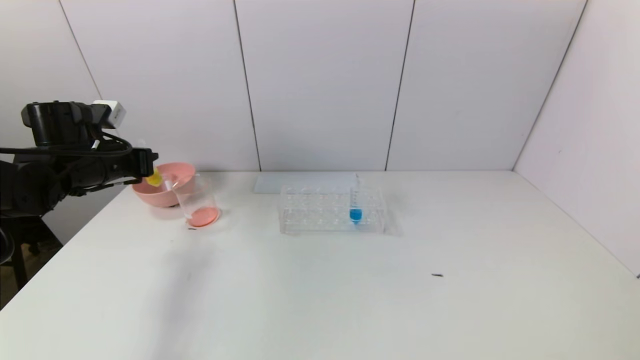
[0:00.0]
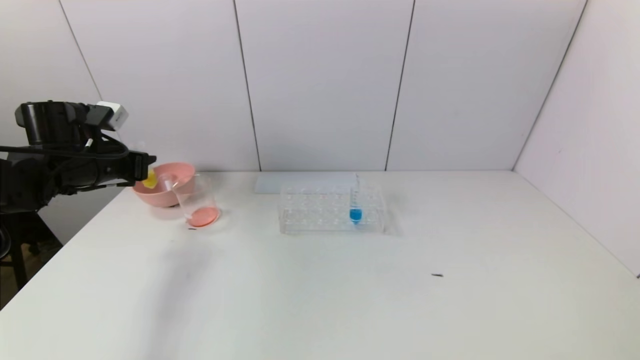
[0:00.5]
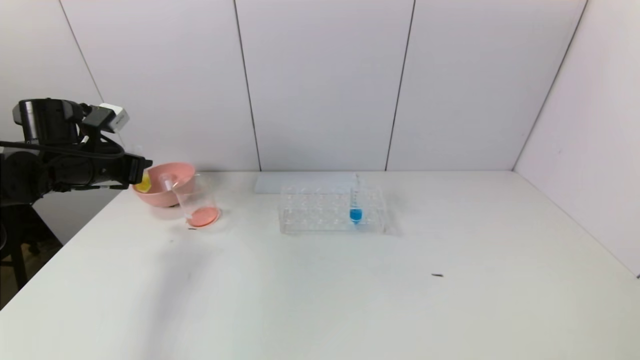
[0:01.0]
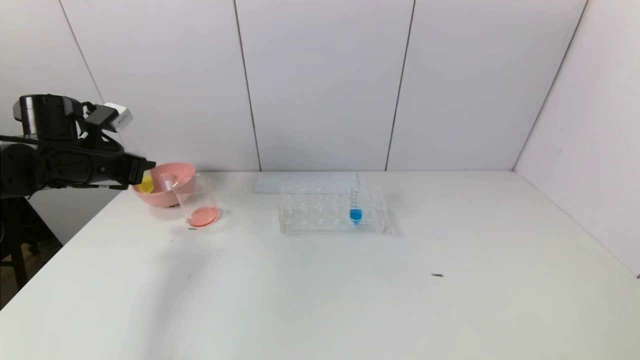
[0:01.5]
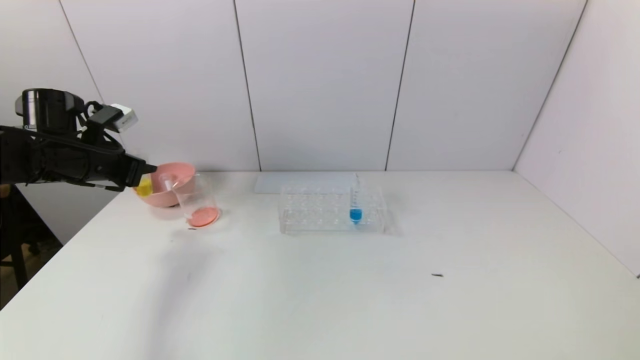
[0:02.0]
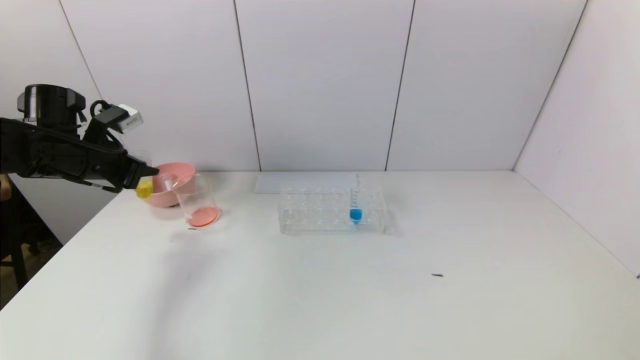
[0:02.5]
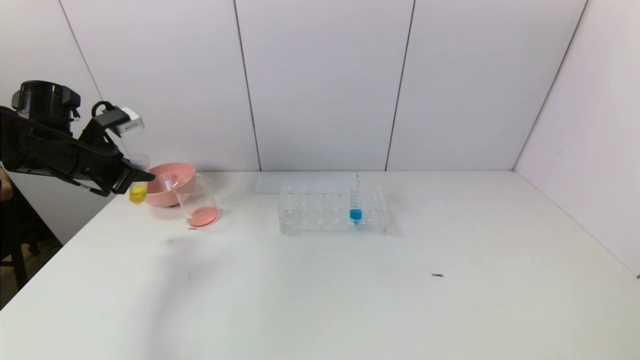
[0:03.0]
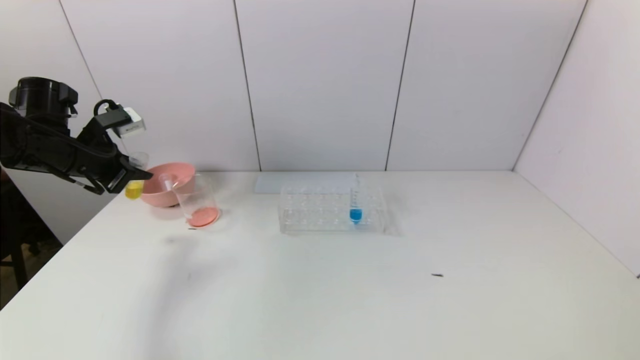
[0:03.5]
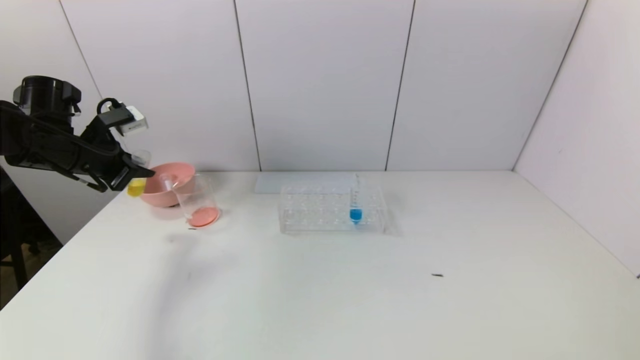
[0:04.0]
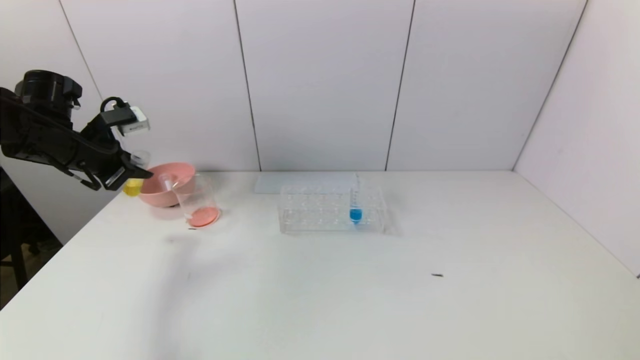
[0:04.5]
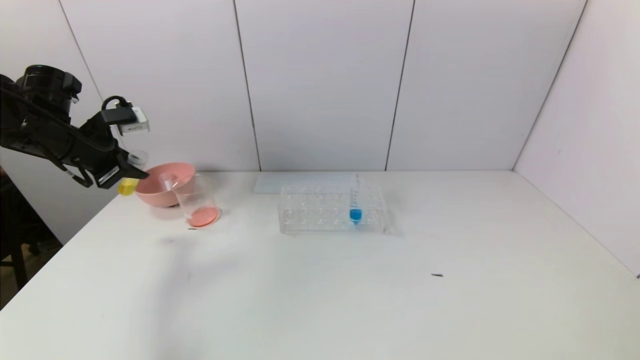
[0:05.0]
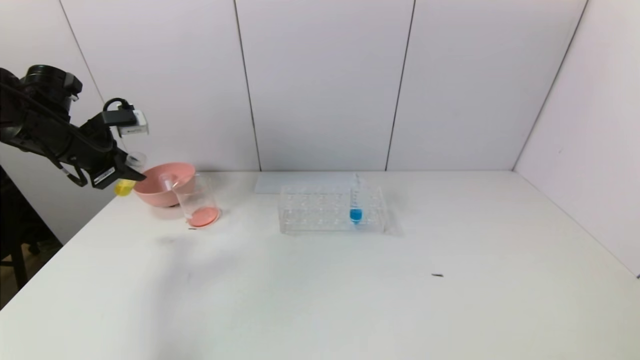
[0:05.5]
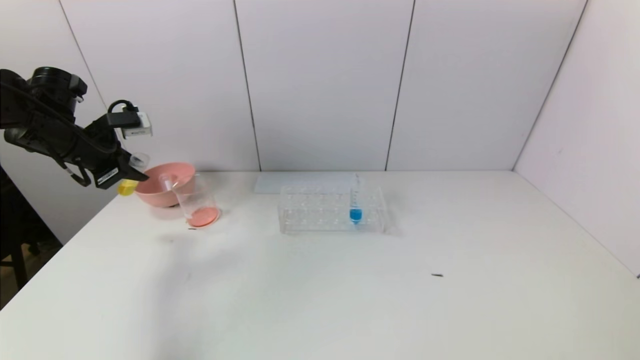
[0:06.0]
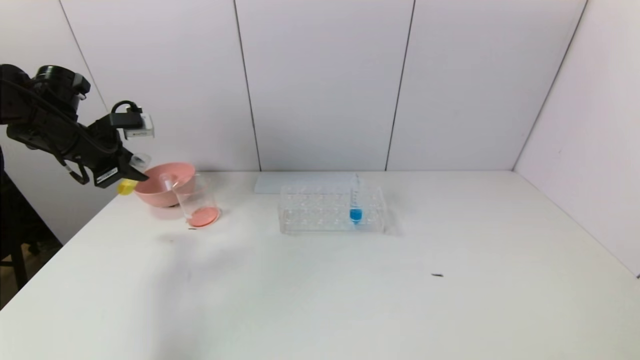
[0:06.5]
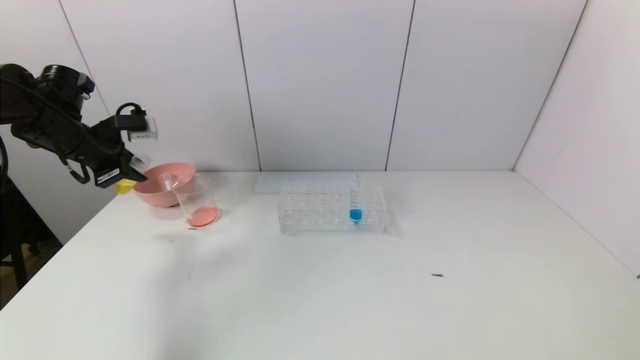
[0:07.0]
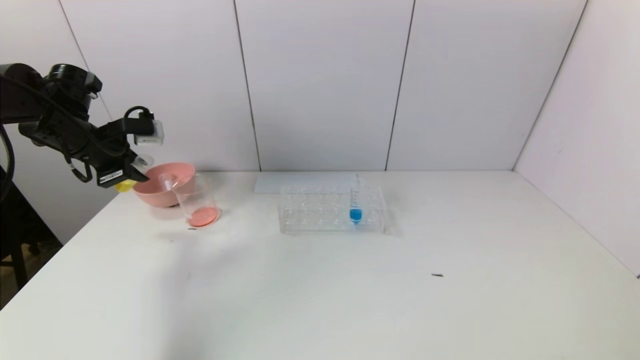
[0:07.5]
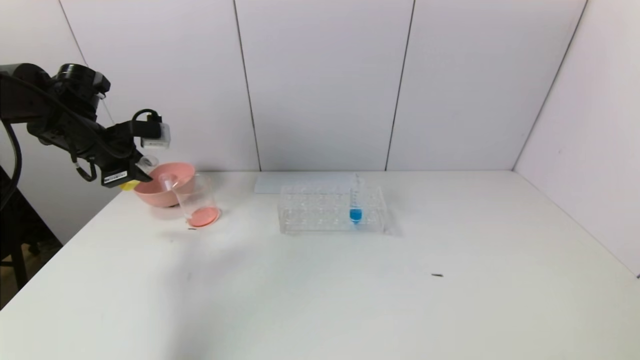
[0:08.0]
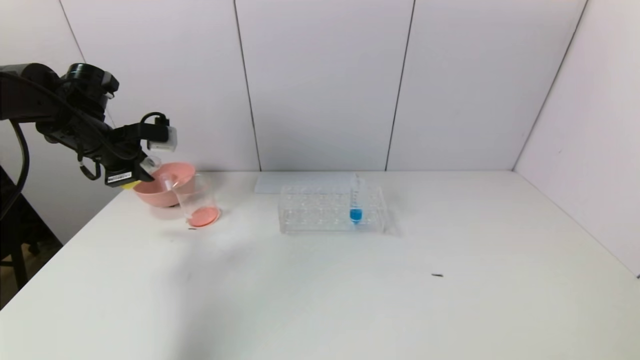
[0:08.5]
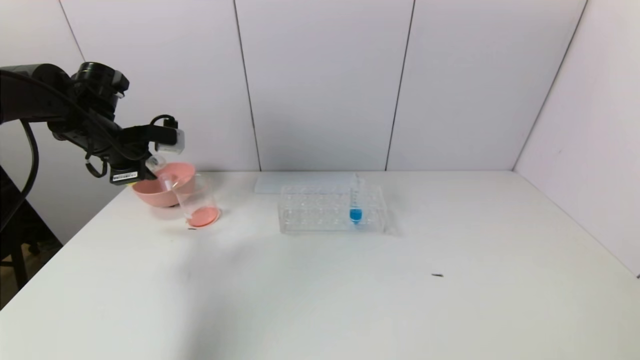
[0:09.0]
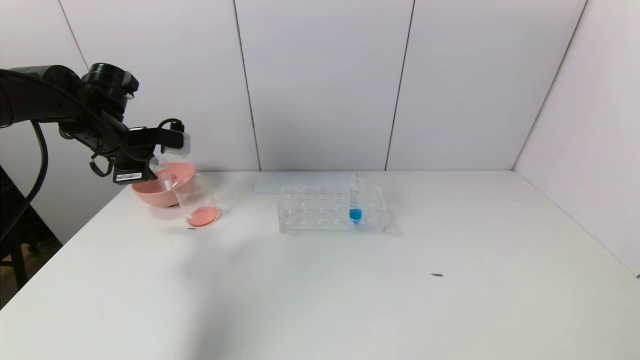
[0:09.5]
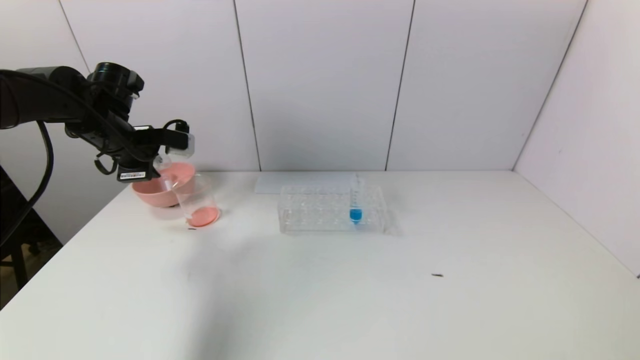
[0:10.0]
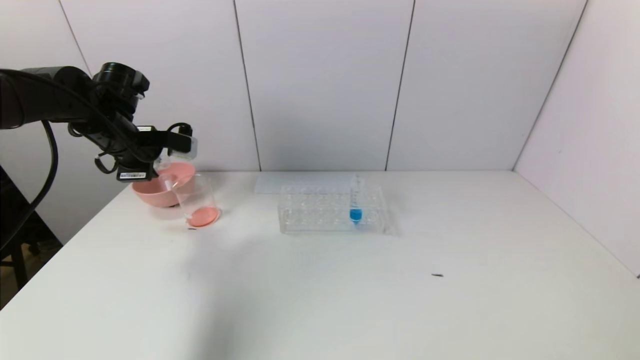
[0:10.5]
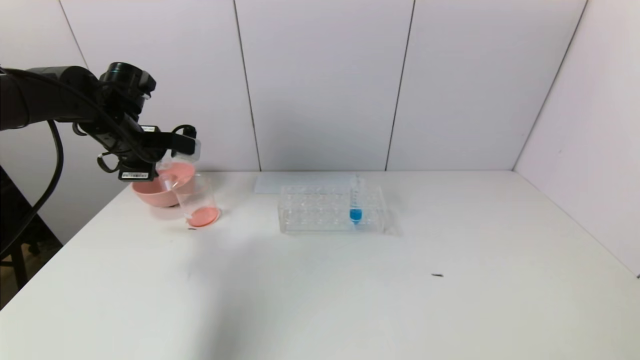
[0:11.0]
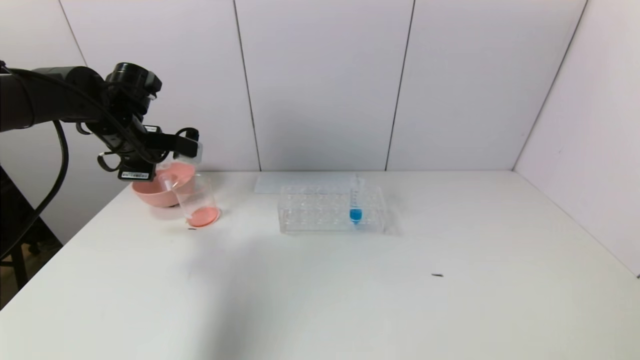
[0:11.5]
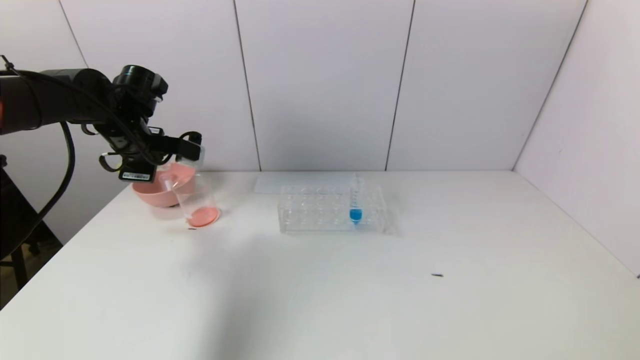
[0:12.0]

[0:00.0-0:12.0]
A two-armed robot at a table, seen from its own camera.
Task of the whole recording: pick up the test tube with yellow pigment and the test tube with red pigment by grippers and pour them into the beaker.
0:04.0 to 0:06.0: There are only small adjustments of the grippers.
0:06.0 to 0:08.0: The grippers stay close to where they were, moving slightly.
0:08.0 to 0:10.0: The grippers stay close to where they were, moving slightly.
0:10.0 to 0:12.0: The grippers stay close to where they were, moving slightly.

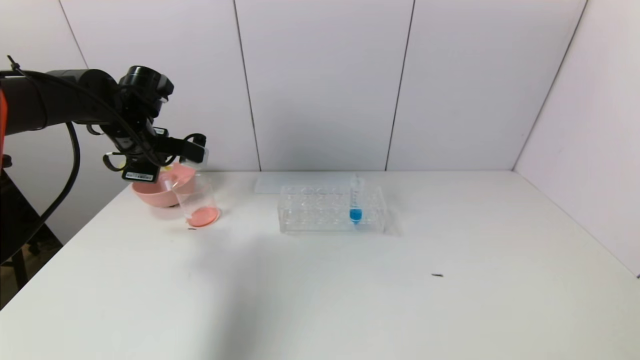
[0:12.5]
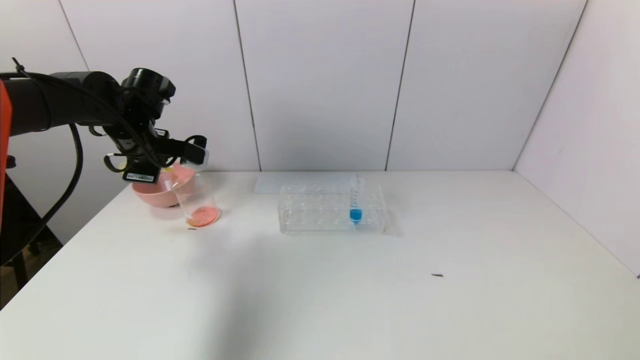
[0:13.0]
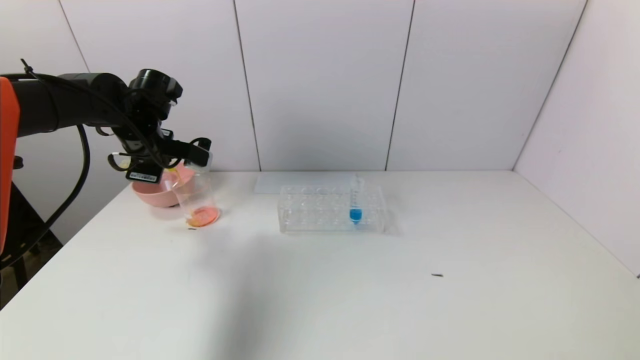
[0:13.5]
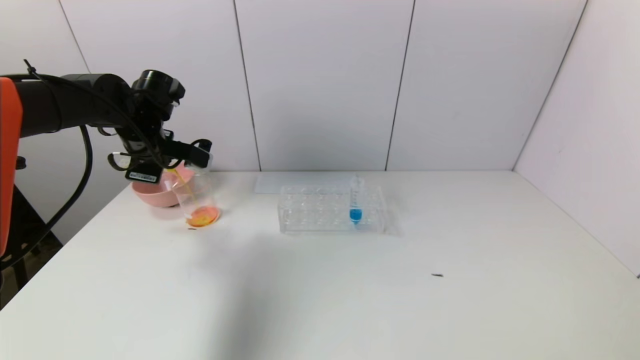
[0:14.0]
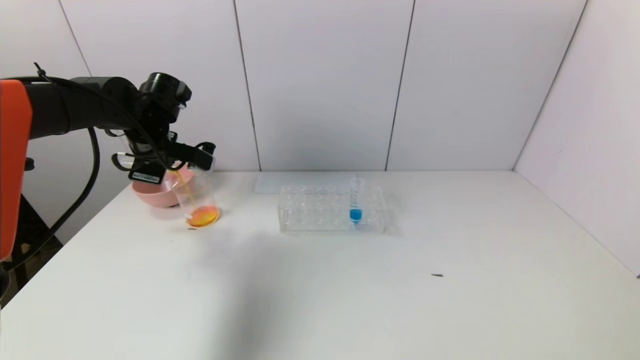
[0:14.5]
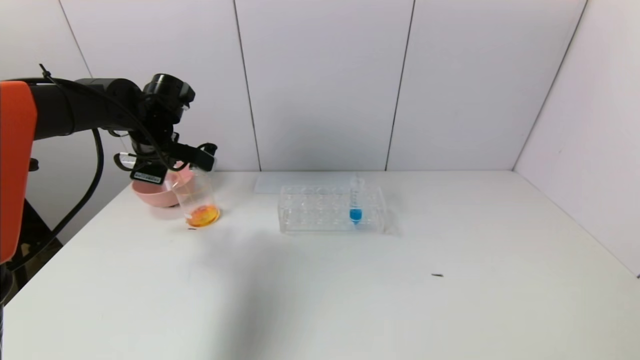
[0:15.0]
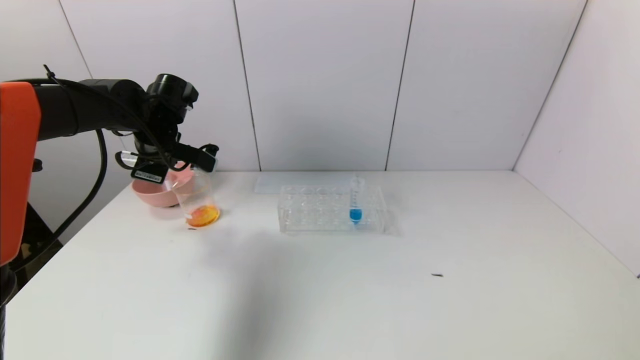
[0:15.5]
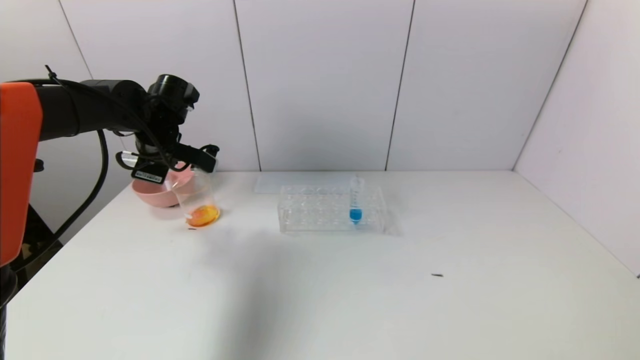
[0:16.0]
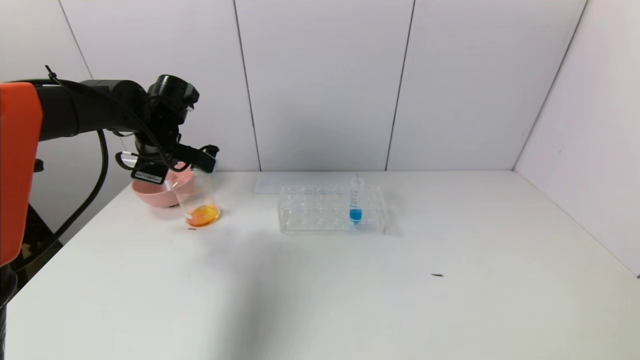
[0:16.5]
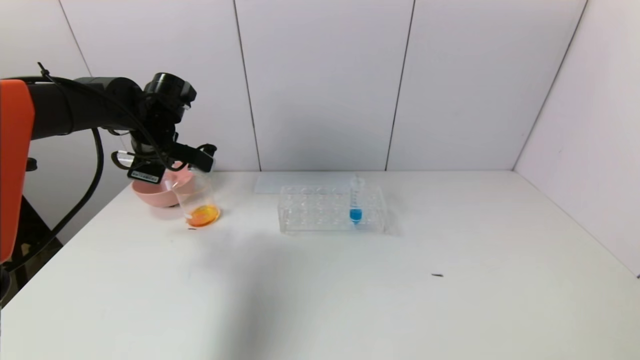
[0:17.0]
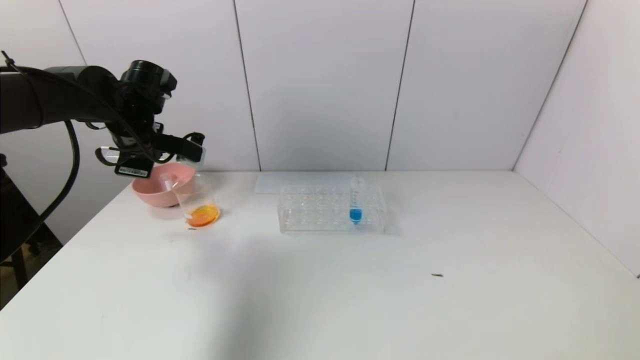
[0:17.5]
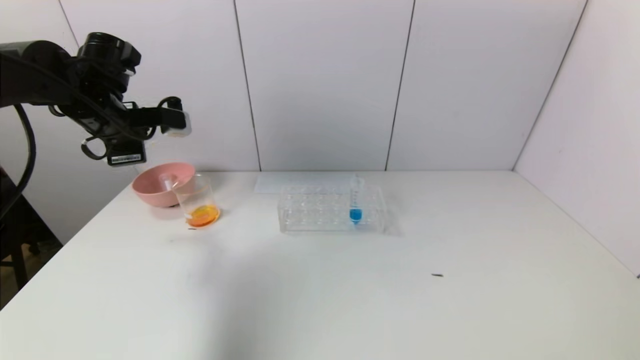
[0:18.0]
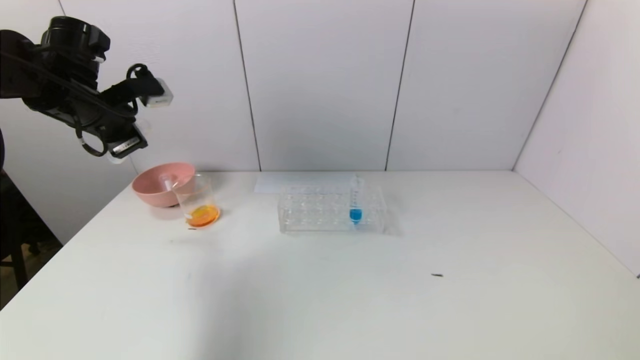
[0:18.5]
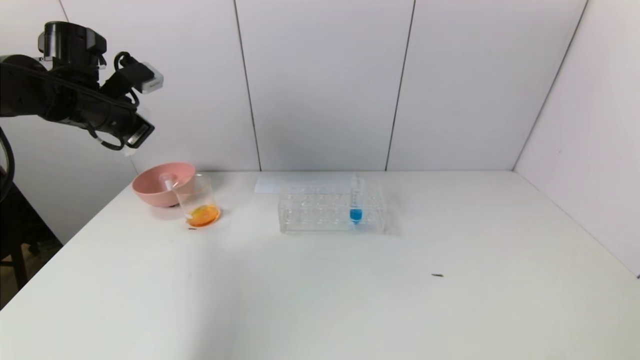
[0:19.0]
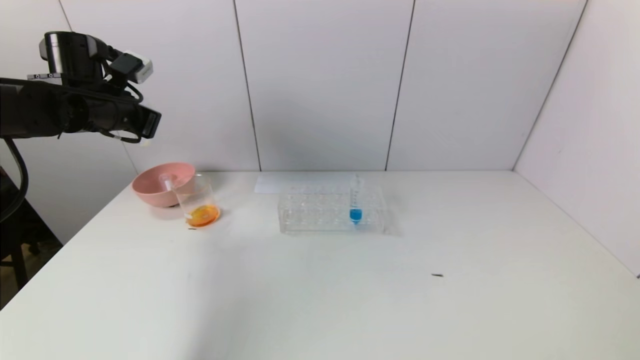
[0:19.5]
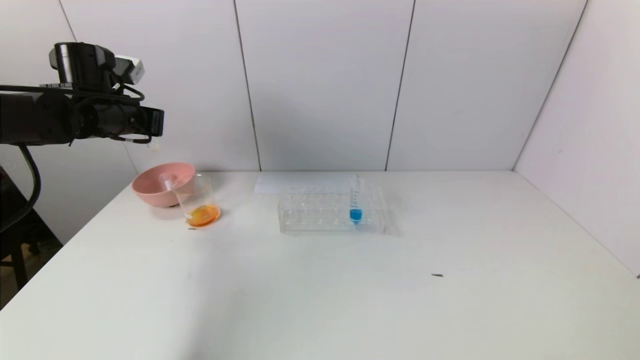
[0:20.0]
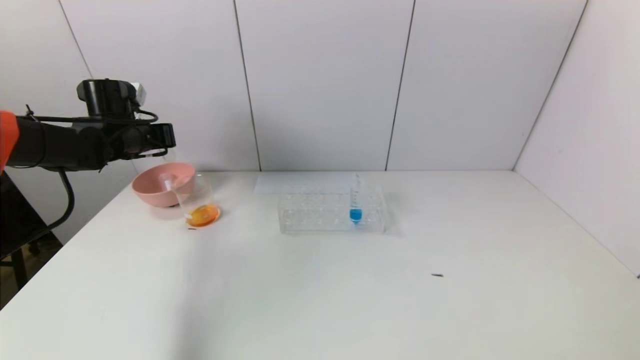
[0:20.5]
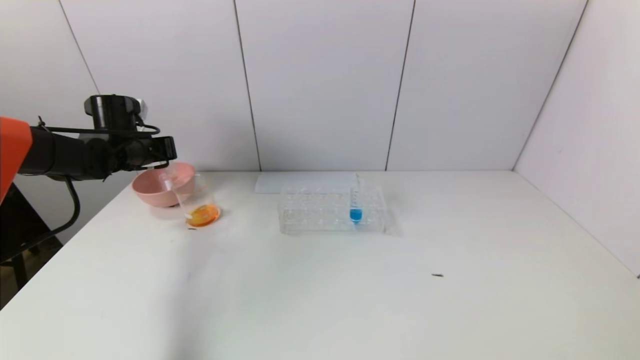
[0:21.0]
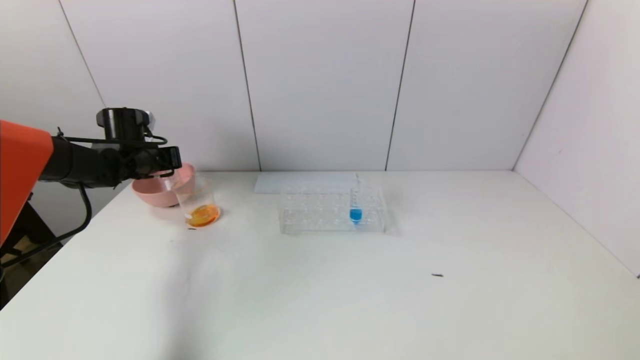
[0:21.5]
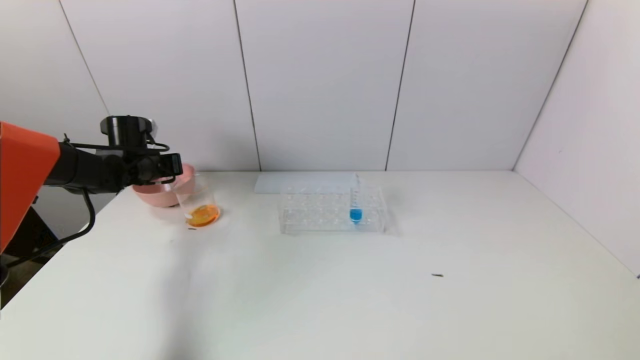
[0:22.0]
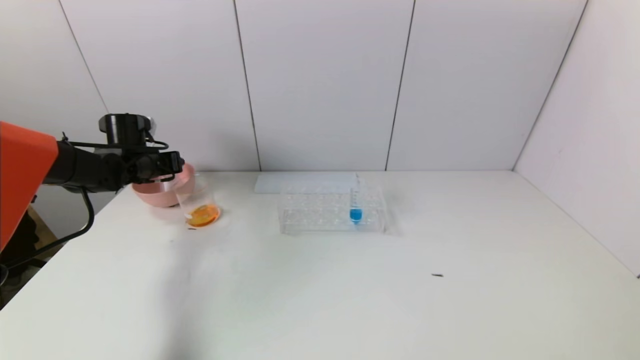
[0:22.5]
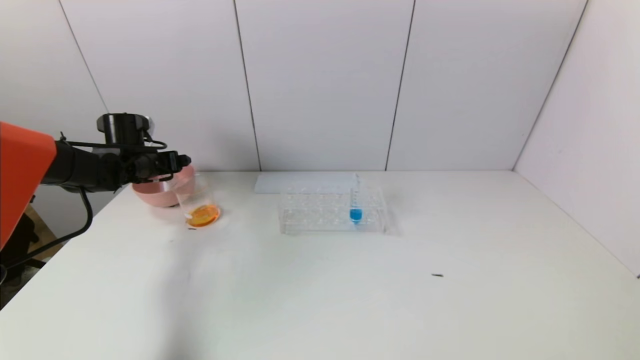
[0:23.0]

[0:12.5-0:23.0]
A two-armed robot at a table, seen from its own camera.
Task of the whole recording: pick up the test tube with yellow pigment and the test tube with red pigment by grippers and pour them into the beaker.
Step, 0:12.5 to 0:16.0: Pour the yellow reagent into the graduated cylinder with the left gripper.
Step, 0:16.5 to 0:22.5: Place the test tube into the pink bowl with the left gripper.
0:12.5 to 0:14.5: There are only small adjustments of the grippers.
0:14.5 to 0:16.5: The two grippers keep their place.
0:16.5 to 0:19.0: The left gripper goes approximately 10 cm to the left and upward.
0:19.0 to 0:21.0: The left gripper travels downward and forward by some 10 cm.
0:21.0 to 0:23.0: The left gripper opens up.
